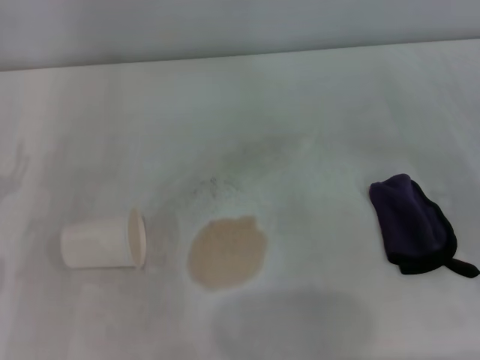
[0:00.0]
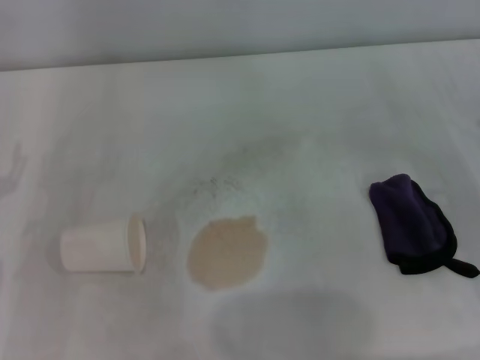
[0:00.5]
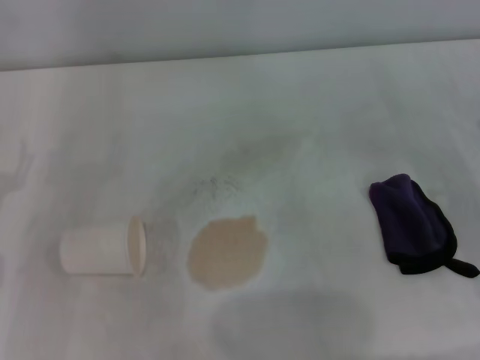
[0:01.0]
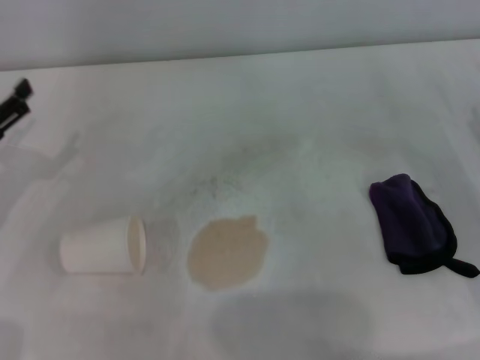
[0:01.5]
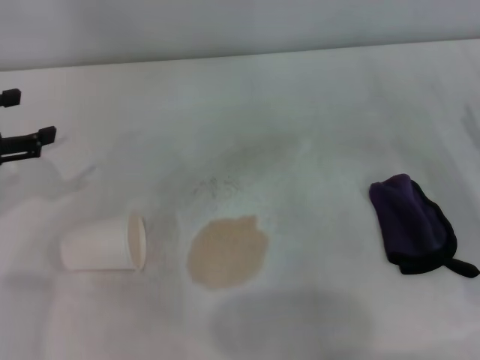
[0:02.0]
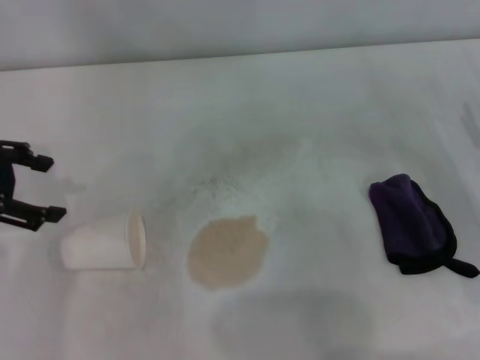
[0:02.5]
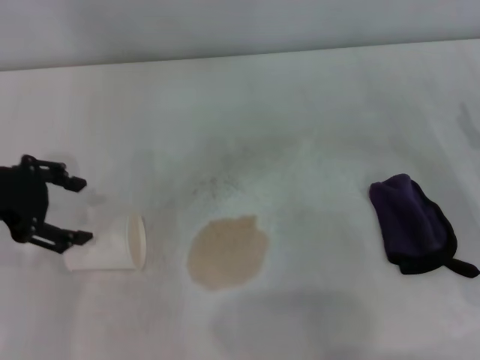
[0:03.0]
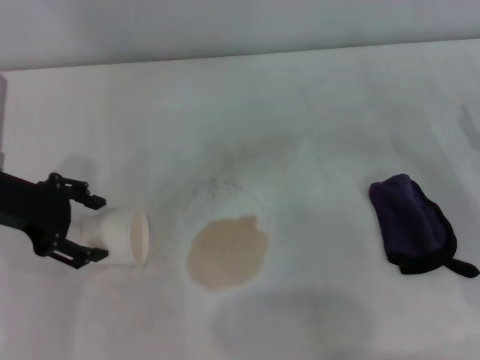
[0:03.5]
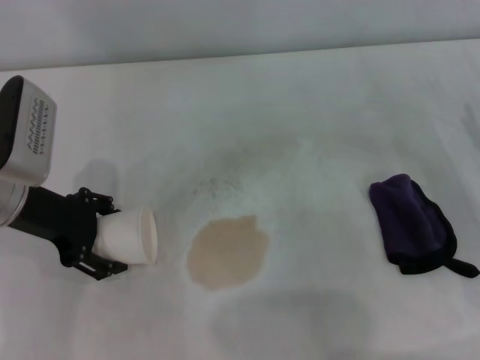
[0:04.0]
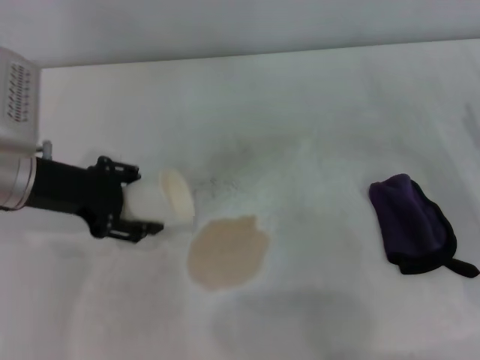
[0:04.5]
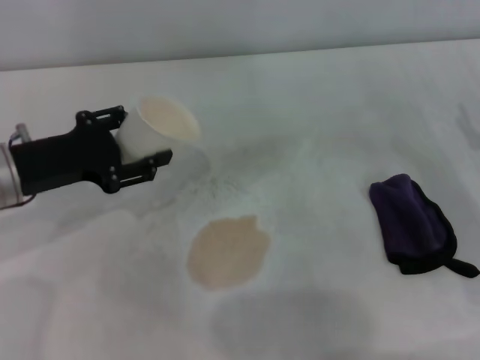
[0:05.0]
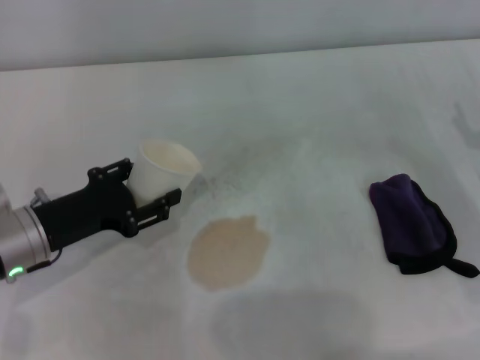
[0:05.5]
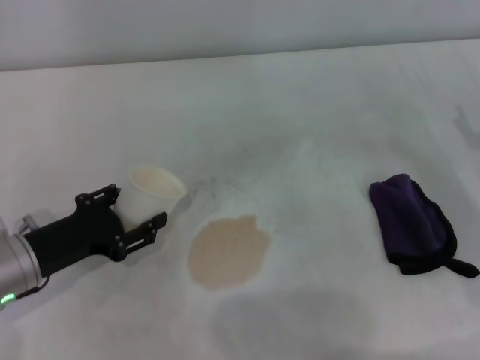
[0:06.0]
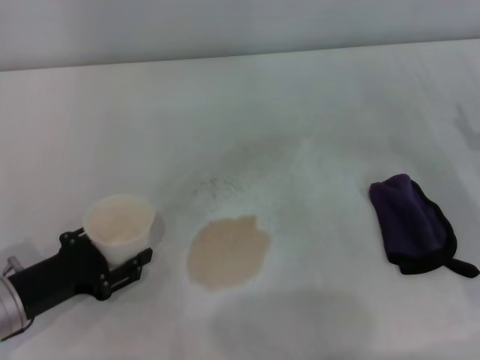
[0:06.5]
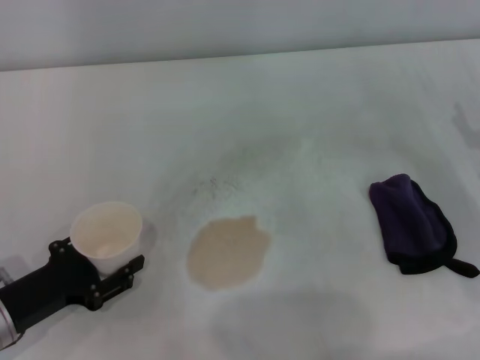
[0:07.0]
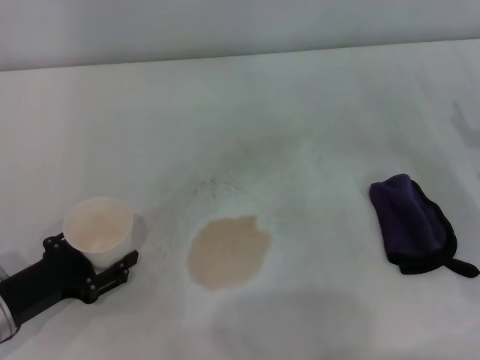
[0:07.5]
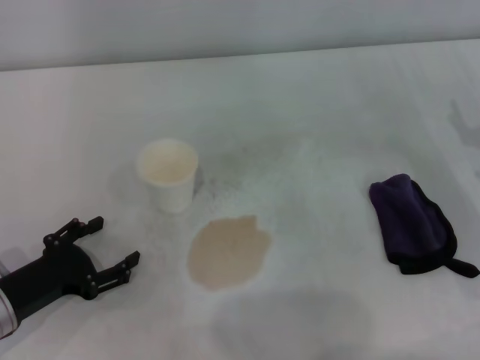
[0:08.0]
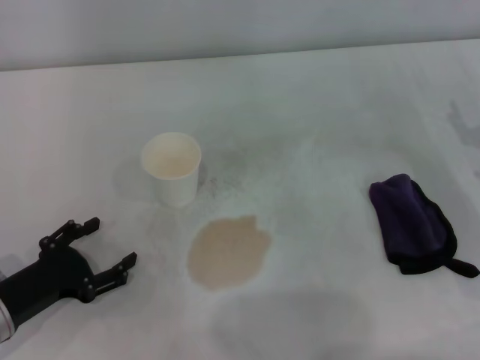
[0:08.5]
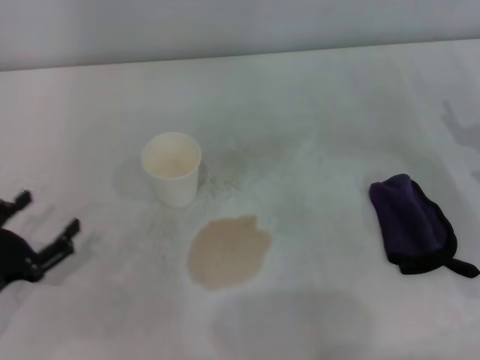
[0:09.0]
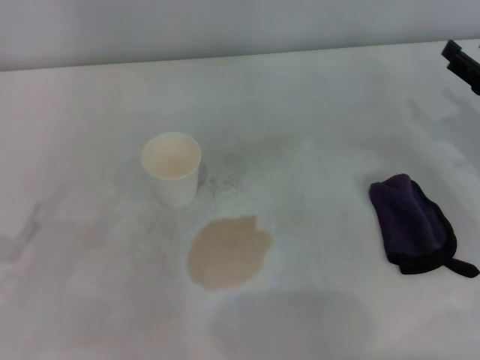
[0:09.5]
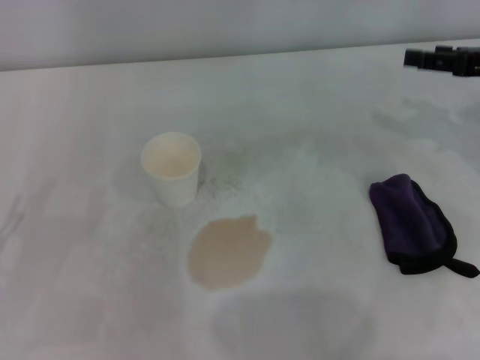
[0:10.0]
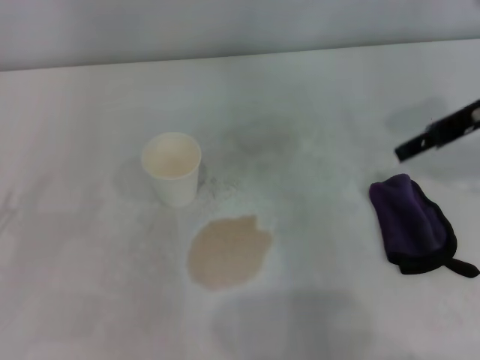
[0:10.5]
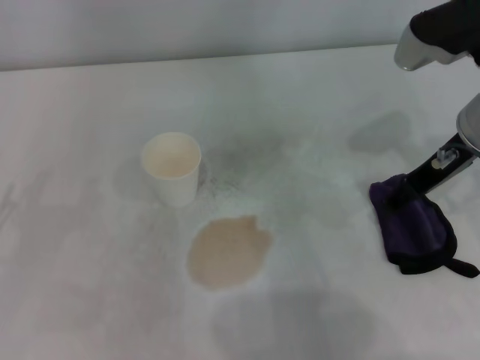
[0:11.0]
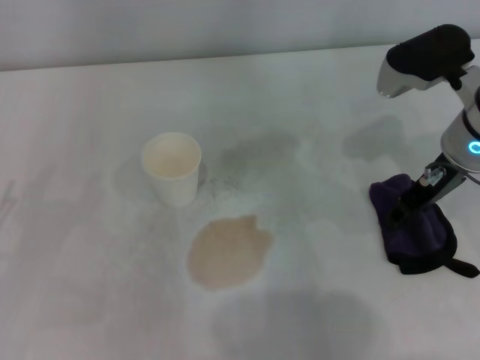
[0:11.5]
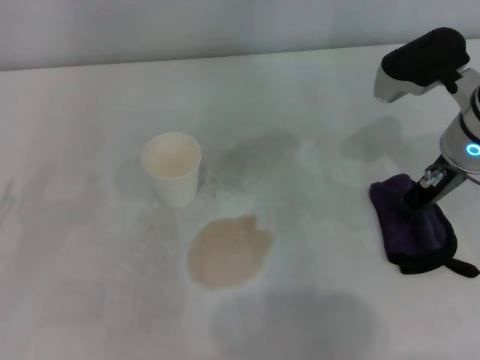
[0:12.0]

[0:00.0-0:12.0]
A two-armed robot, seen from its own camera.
Step, 0:00.0 to 0:03.5: Grasp the paper cup with the left gripper.
Step, 0:04.0 to 0:07.5: Stand the paper cup upright with the left gripper.
0:00.0 to 0:02.0: The left gripper heads upward and forward, covering about 10 cm.
0:02.0 to 0:04.0: The left gripper travels to the right by about 10 cm.
0:04.0 to 0:06.0: The left gripper is displaced backward and downward by some 10 cm, and closes its fingers.
0:06.0 to 0:08.0: The left gripper changes place by approximately 5 cm, and opens.
0:08.0 to 0:10.0: The right gripper heads upward and forward, covering some 15 cm. The left gripper goes some 5 cm to the left.
0:10.0 to 0:12.0: The right gripper moves to the left, roughly 10 cm, and closes its fingers.

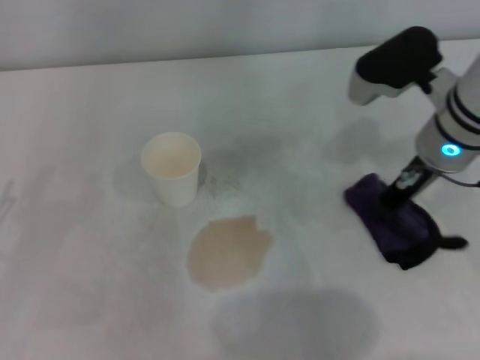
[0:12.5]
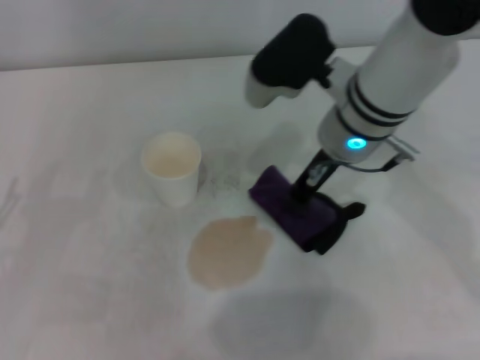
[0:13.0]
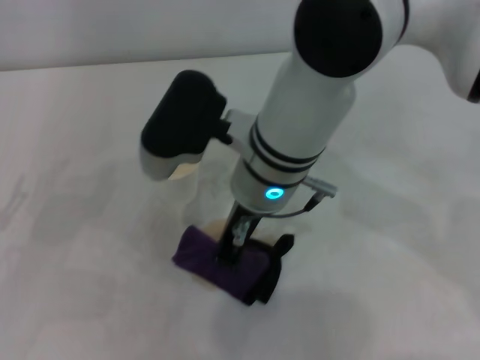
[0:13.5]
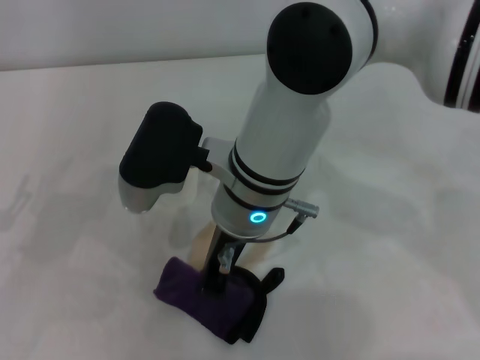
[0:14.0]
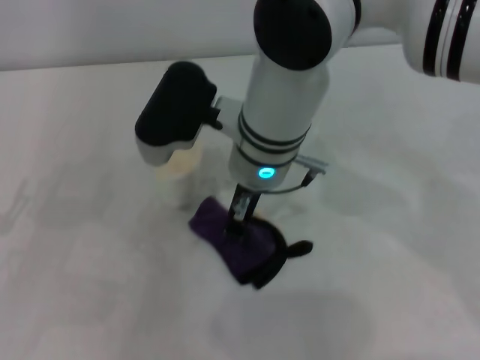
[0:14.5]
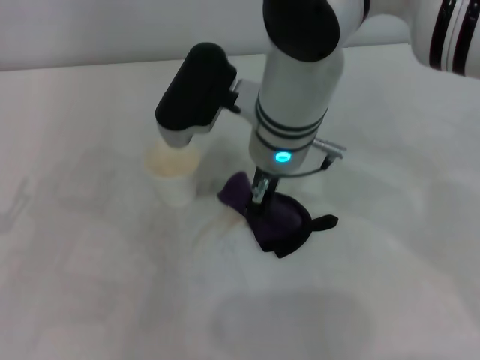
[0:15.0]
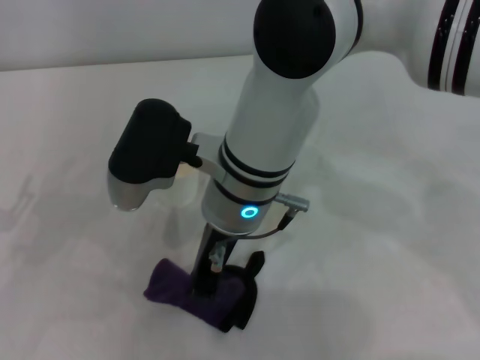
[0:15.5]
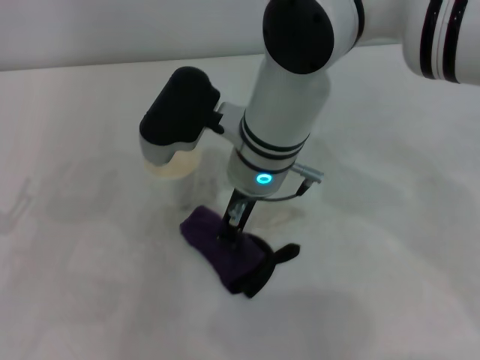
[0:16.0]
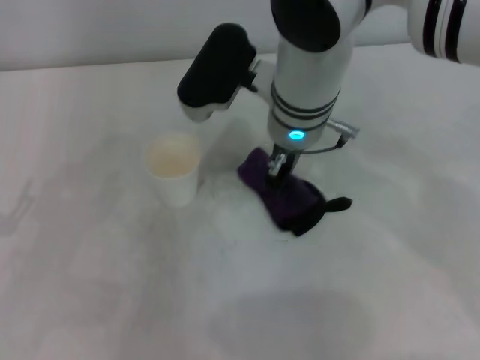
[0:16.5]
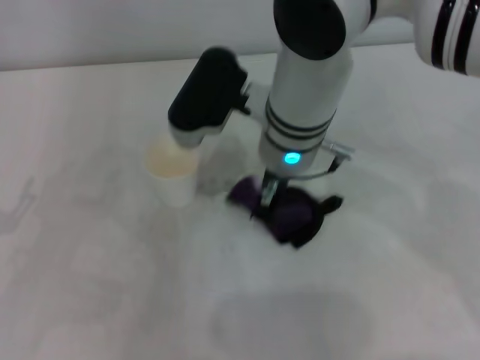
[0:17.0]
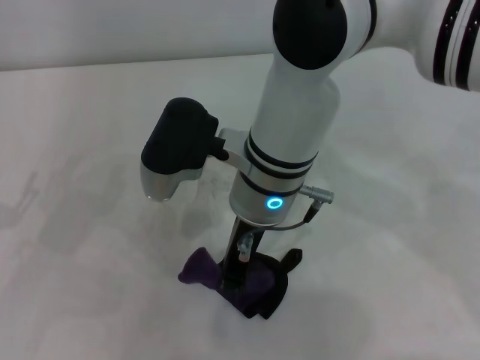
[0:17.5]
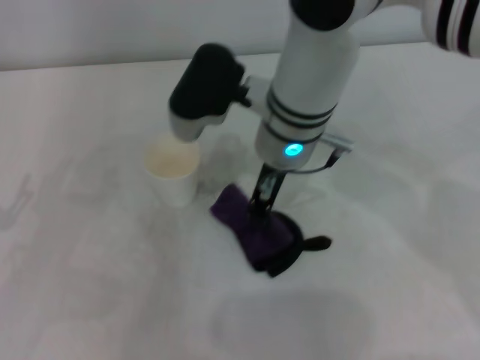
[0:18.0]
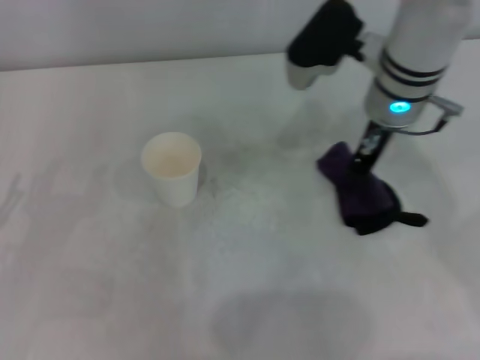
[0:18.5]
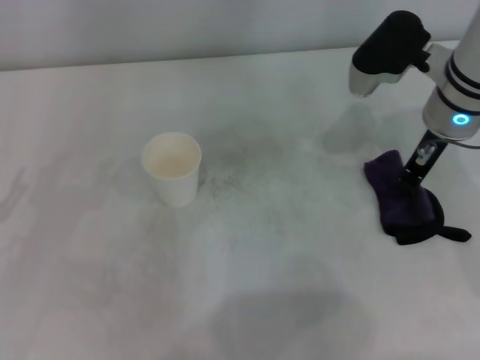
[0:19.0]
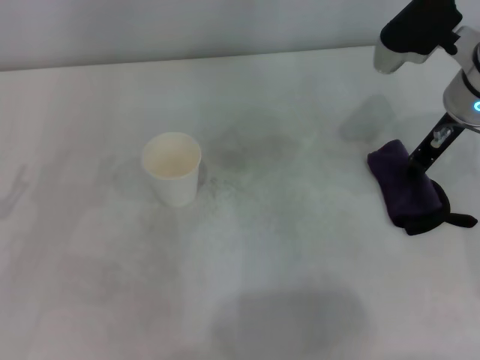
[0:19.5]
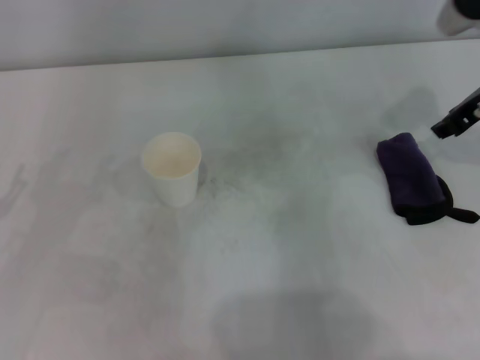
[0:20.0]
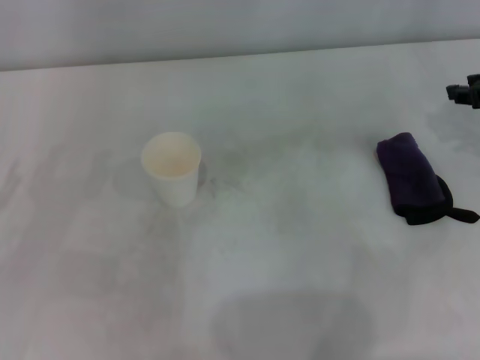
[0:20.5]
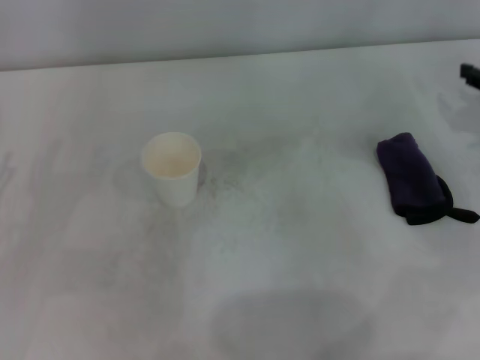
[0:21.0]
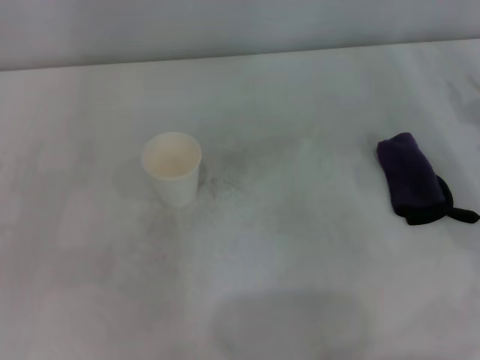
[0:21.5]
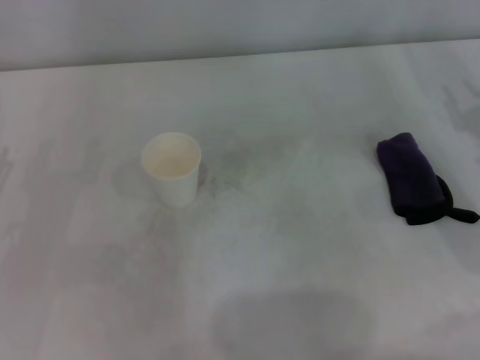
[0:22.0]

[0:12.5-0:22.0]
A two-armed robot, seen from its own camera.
Step, 0:12.5 to 0:19.0: Wipe the stains off the table with the right gripper.
0:12.5 to 0:14.5: The right gripper moves to the left, some 20 cm.
0:18.0 to 0:20.0: The right gripper goes approximately 25 cm to the right, and opens its fingers.
0:20.0 to 0:22.0: The right gripper shifts approximately 15 cm downward, to the right and backward.
